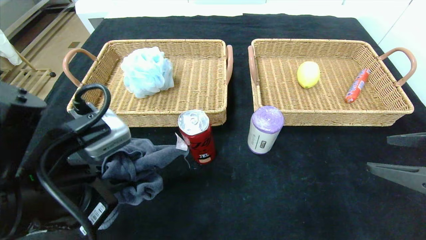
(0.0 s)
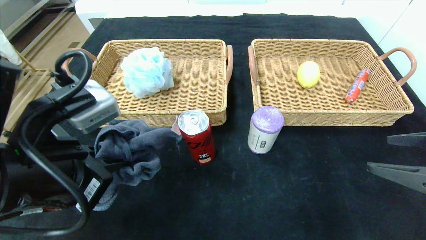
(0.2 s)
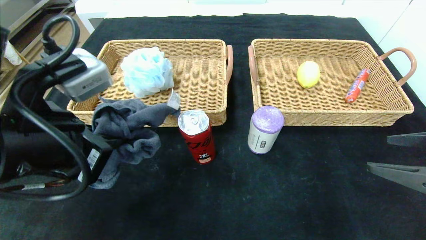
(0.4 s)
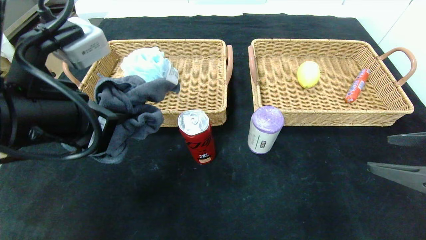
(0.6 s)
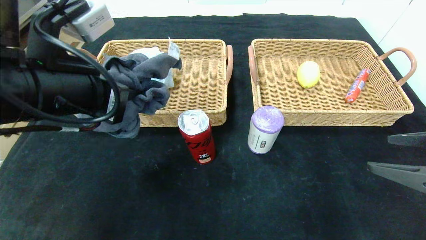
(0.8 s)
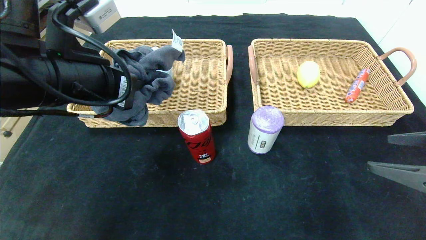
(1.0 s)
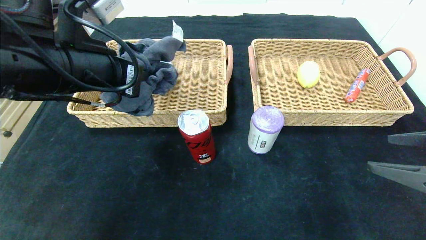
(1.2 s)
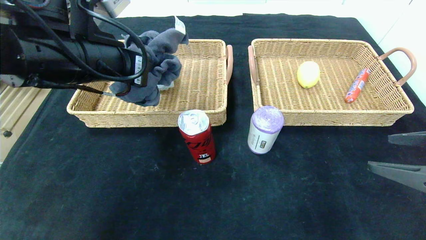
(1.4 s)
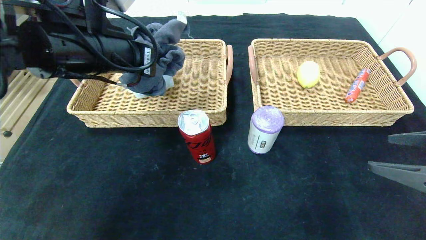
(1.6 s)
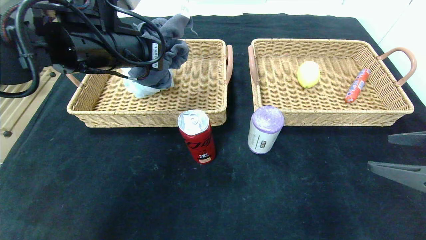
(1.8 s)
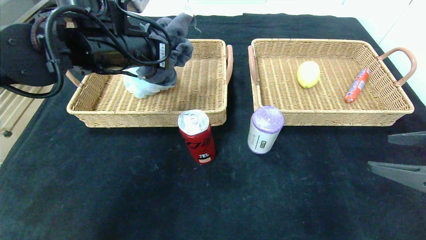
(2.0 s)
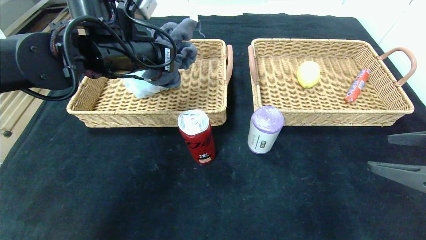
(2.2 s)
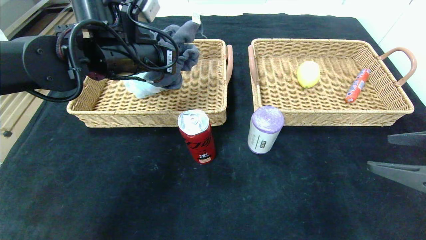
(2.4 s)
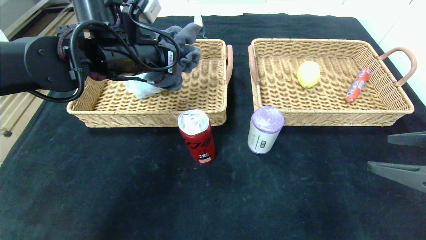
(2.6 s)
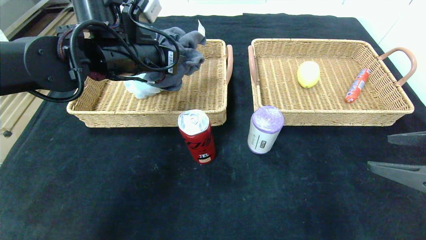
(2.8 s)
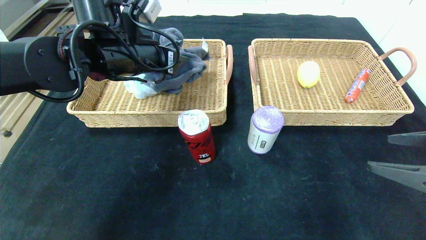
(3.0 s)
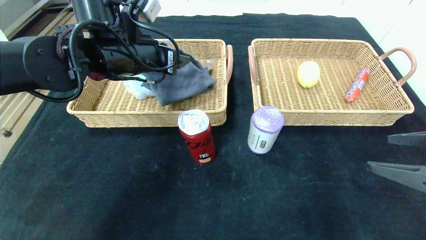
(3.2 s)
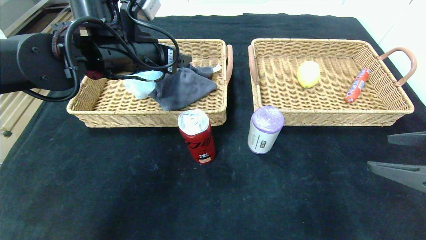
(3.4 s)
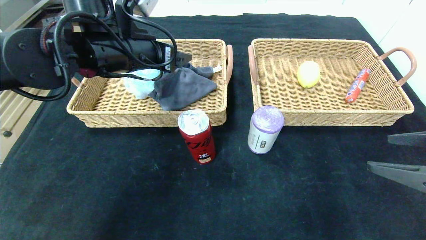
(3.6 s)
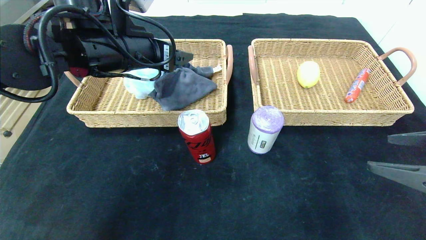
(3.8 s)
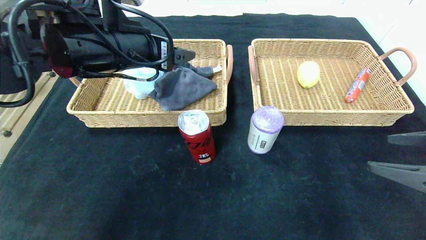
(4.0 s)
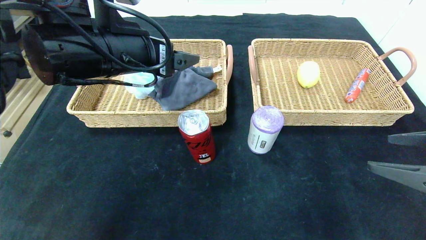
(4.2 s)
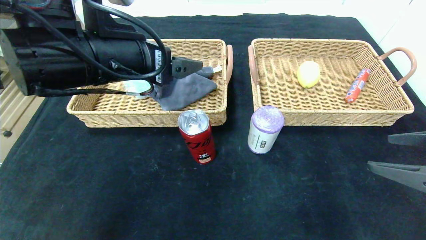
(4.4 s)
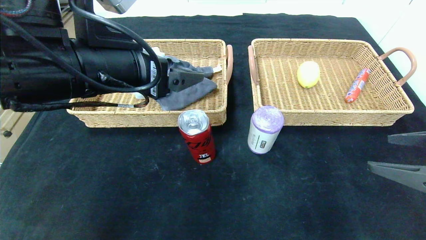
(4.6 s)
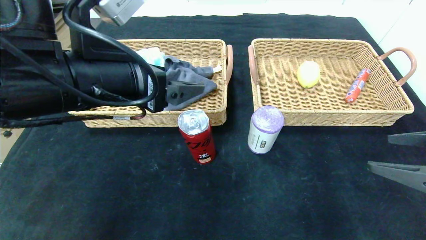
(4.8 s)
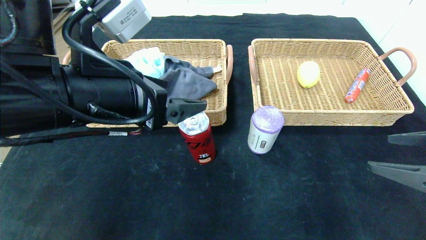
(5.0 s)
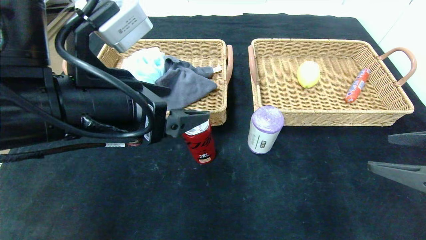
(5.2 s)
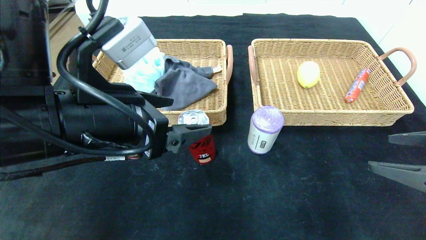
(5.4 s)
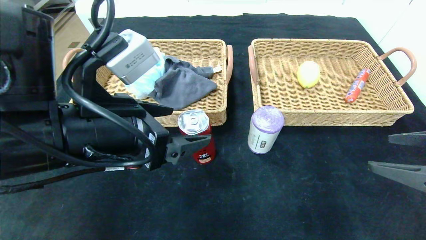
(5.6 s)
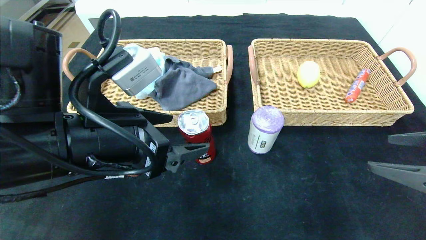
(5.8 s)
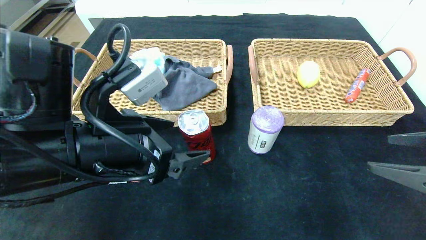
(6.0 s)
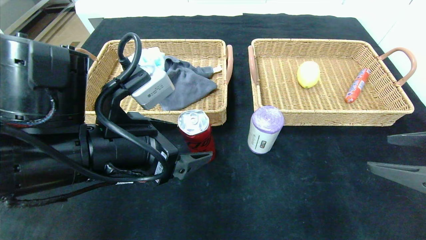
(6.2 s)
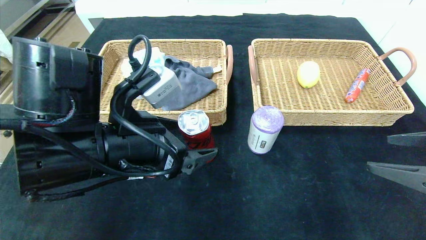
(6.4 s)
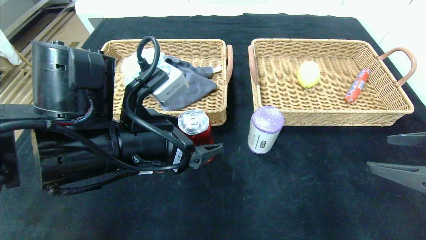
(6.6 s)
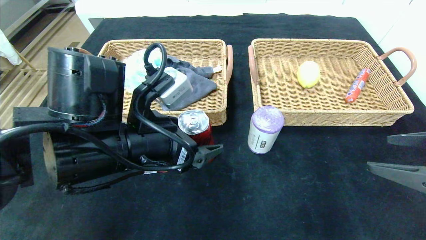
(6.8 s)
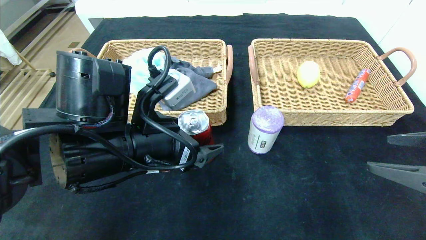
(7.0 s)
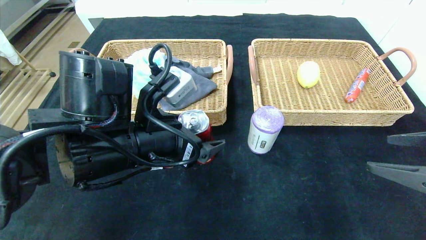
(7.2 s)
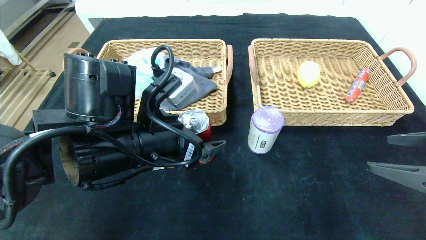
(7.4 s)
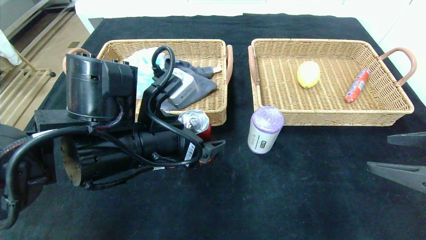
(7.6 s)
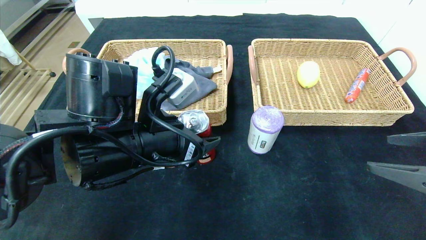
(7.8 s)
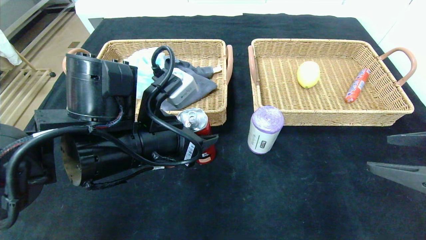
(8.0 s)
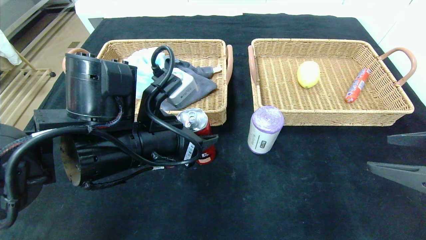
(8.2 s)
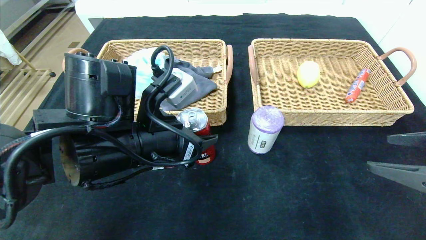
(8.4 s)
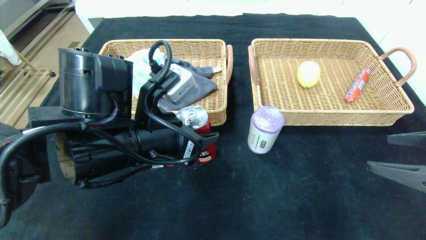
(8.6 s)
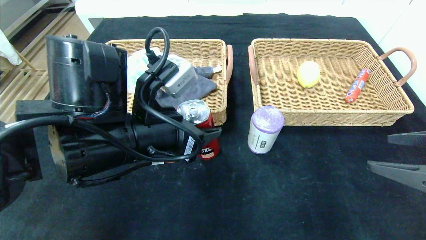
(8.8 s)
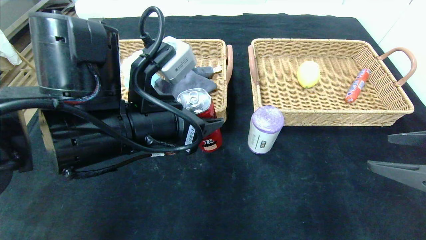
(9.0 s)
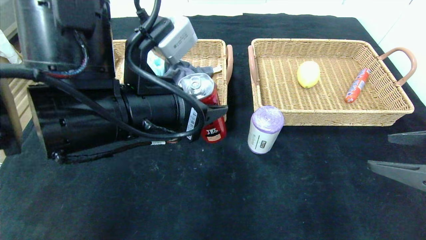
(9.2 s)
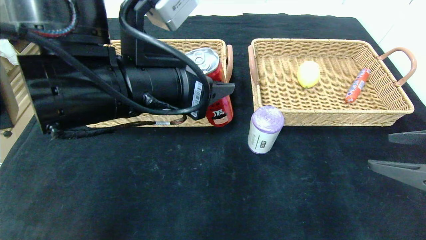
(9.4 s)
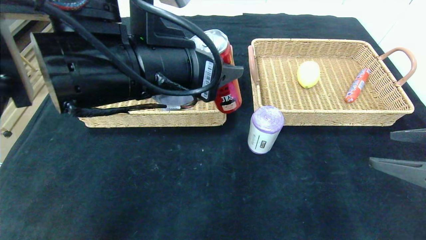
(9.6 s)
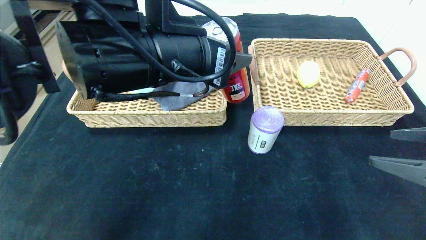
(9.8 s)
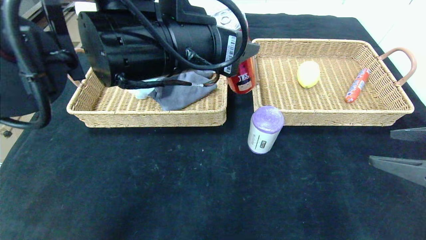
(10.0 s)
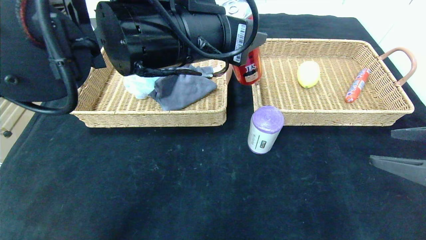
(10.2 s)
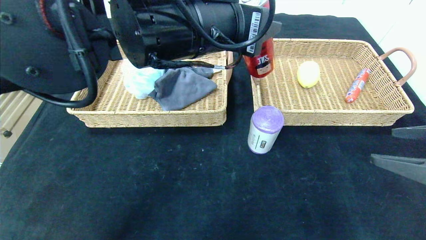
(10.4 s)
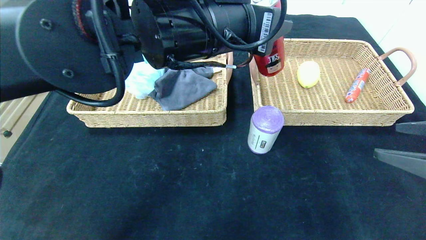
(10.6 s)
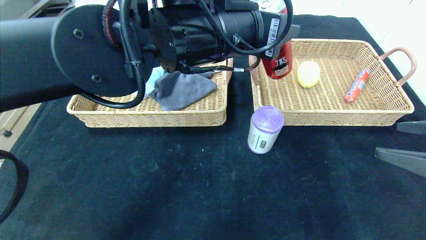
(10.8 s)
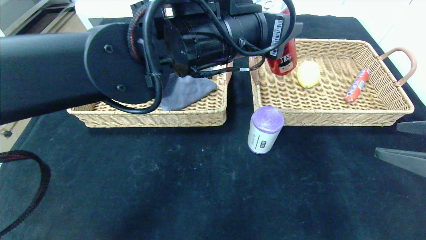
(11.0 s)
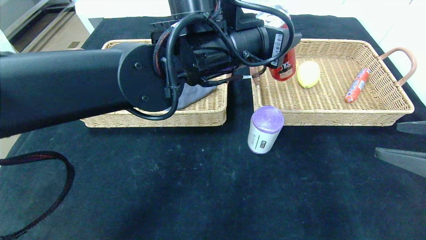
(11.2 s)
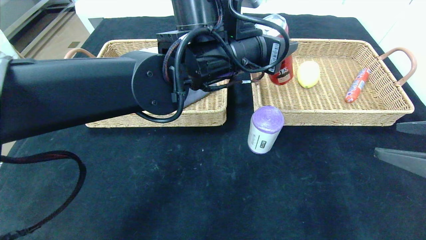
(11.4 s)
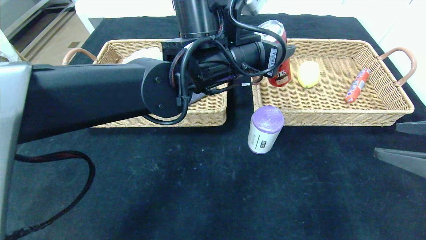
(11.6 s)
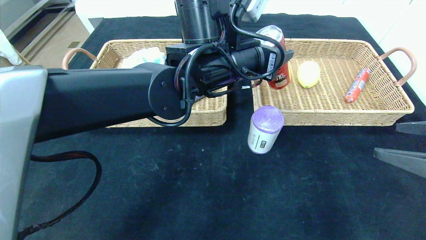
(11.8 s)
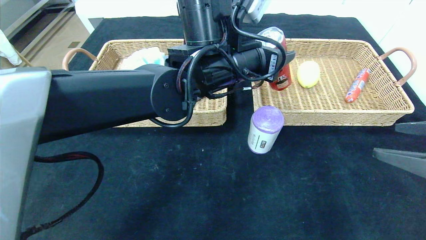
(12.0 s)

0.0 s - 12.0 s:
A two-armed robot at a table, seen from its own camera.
Step, 0.0 s - 3.4 s: Grasp the gray towel and put it in the left basket.
0.0 s - 1.6 s: The left gripper goes some 20 cm forward and upward.
1.6 s - 3.0 s: The left gripper is displaced forward by roughly 5 cm, and opens up.
3.0 s - 4.4 s: The left gripper is displaced backward by about 10 cm, and opens up.
4.4 s - 6.0 s: The left gripper is displaced downward and backward by some 10 cm.
6.0 s - 7.6 s: The left gripper changes place by about 5 cm.
7.6 s - 9.0 s: The left gripper closes.
9.0 s - 10.4 s: The left gripper shifts some 10 cm upward and to the right.
10.4 s - 12.0 s: The left gripper shifts roughly 10 cm forward and downward.

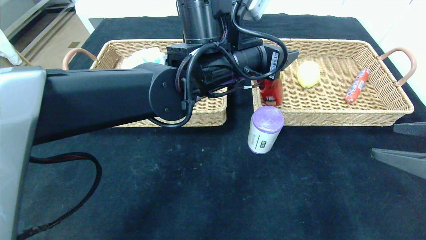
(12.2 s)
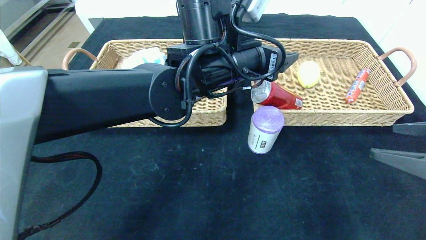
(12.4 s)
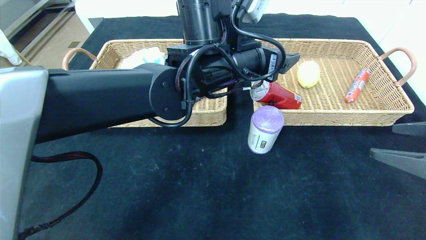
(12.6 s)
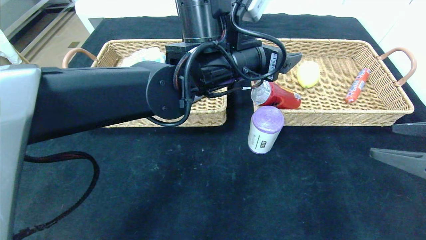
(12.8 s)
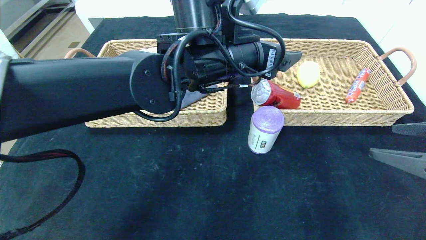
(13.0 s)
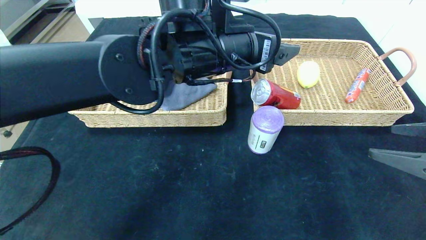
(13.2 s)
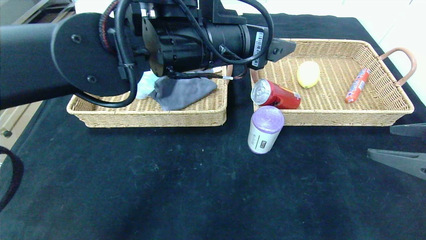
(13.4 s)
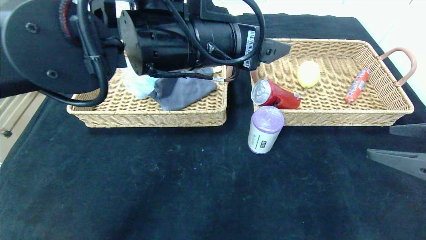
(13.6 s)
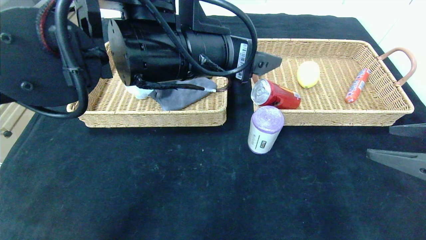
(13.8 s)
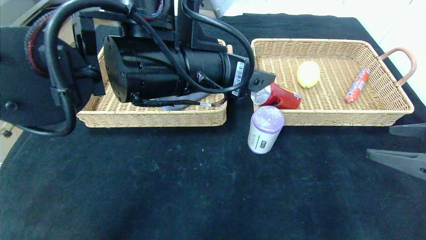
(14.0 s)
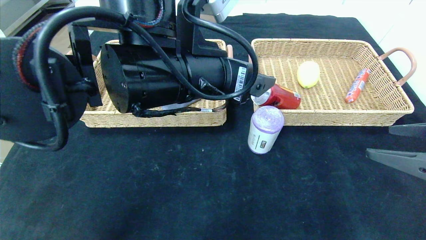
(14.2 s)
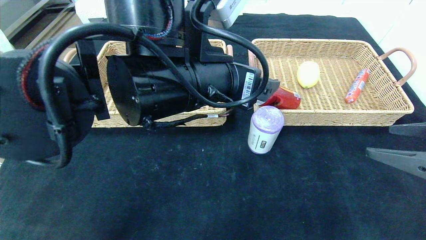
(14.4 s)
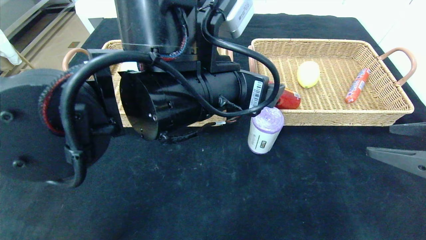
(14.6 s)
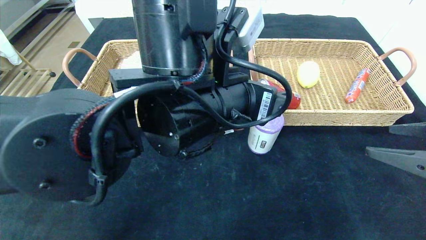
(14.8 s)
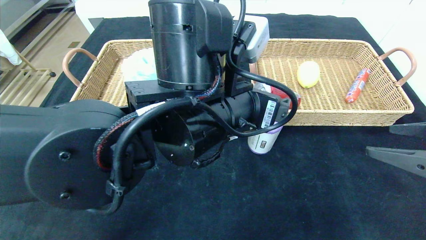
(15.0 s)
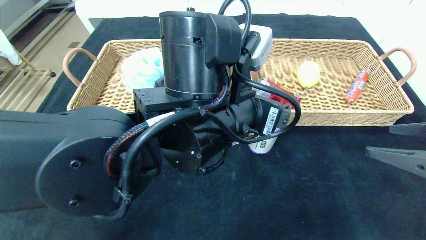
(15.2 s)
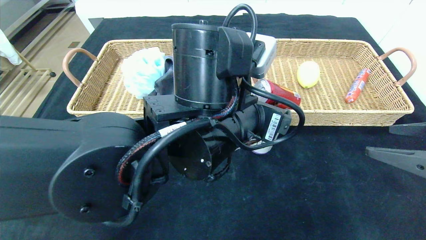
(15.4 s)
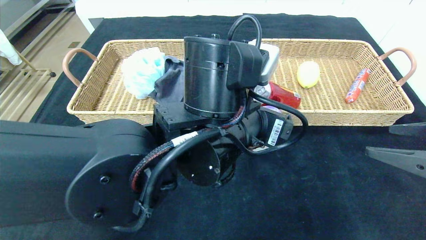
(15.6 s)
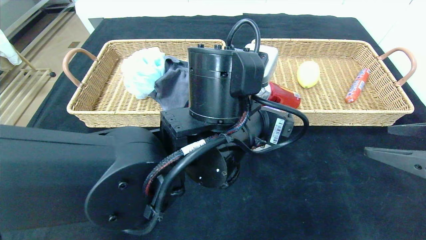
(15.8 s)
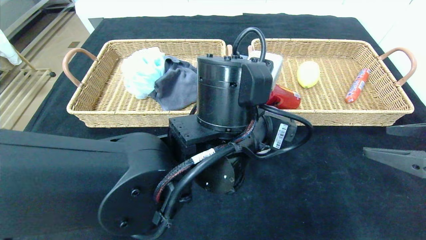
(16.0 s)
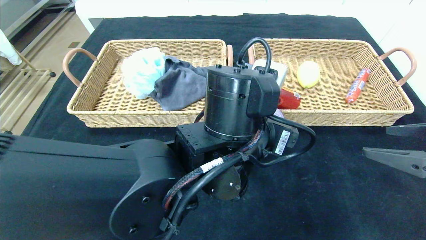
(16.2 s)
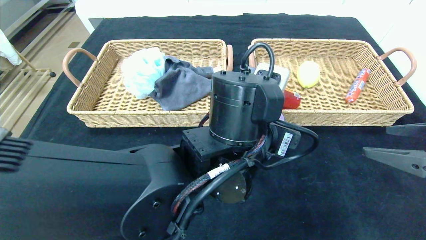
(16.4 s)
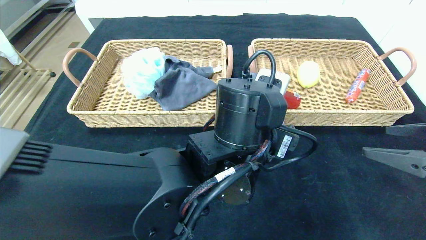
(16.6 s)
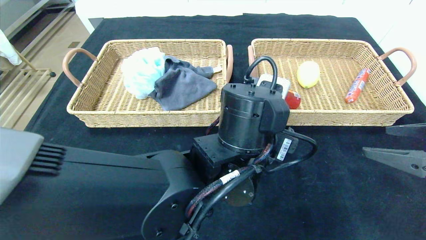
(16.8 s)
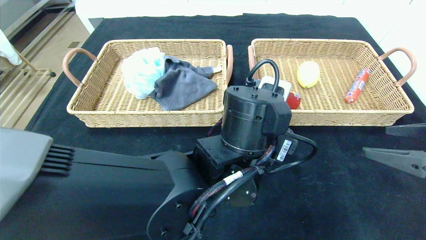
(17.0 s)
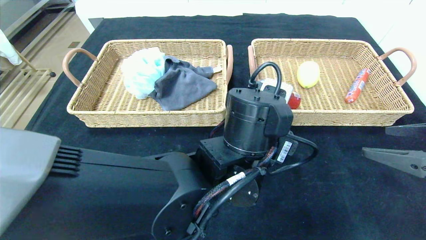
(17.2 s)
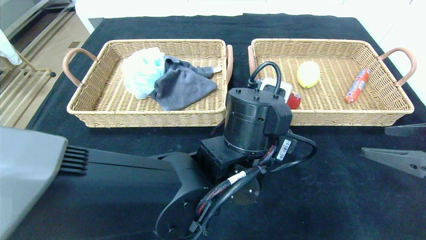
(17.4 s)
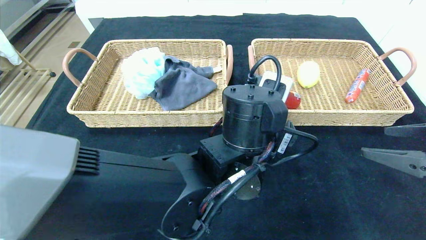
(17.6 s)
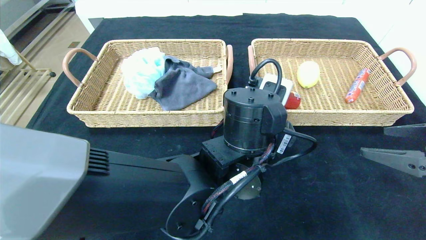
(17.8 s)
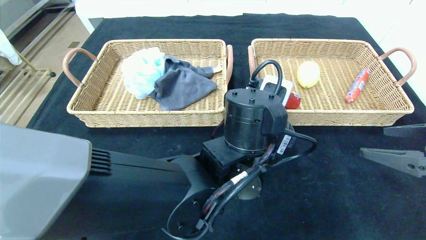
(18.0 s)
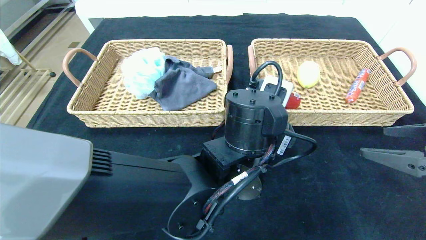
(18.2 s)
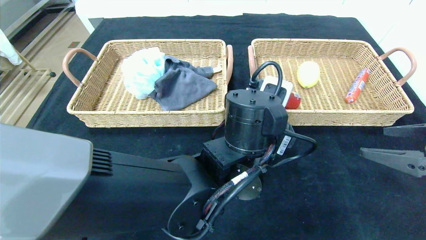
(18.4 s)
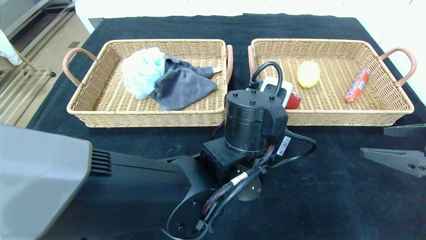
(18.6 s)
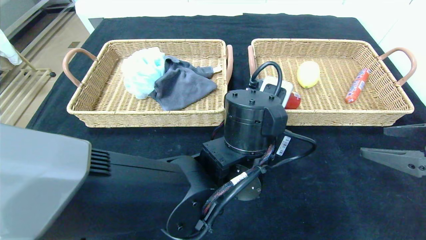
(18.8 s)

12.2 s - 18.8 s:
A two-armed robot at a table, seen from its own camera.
12.2 s - 13.8 s: The left gripper is displaced backward and to the left by about 10 cm.
13.8 s - 15.4 s: The left gripper heads downward and to the right, covering some 10 cm.
15.4 s - 17.2 s: The left gripper heads downward, covering roughly 5 cm.
17.2 s - 18.8 s: The left gripper closes its fingers.
